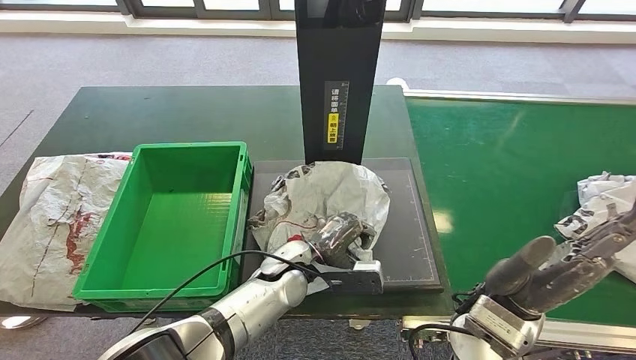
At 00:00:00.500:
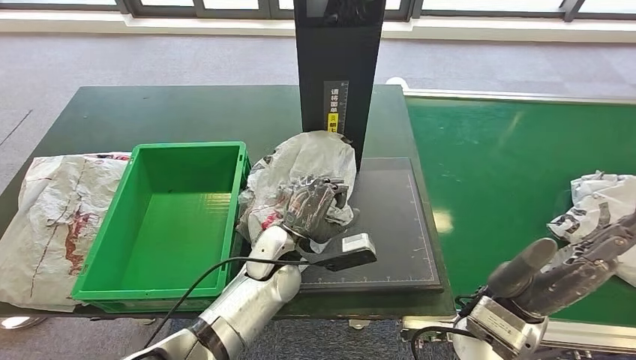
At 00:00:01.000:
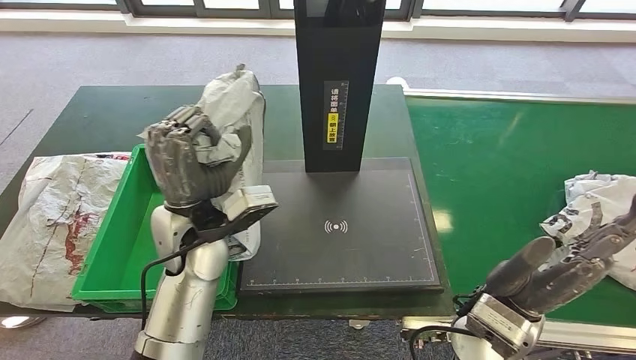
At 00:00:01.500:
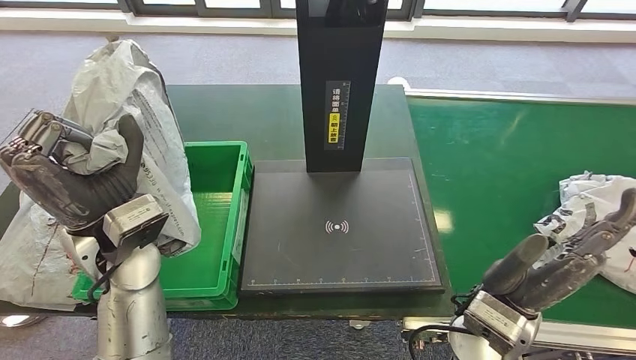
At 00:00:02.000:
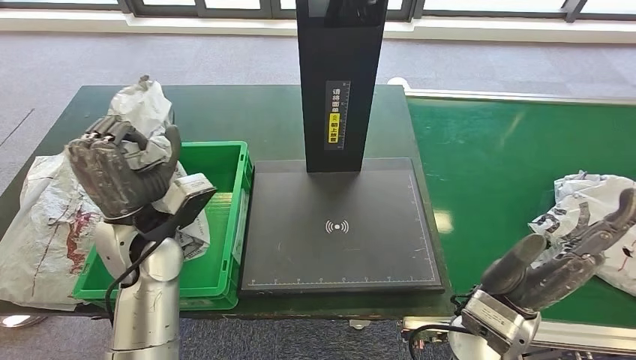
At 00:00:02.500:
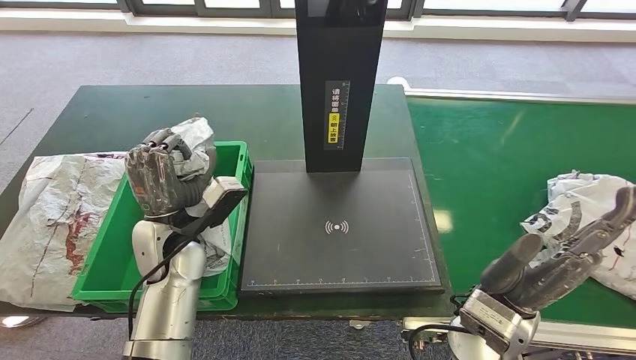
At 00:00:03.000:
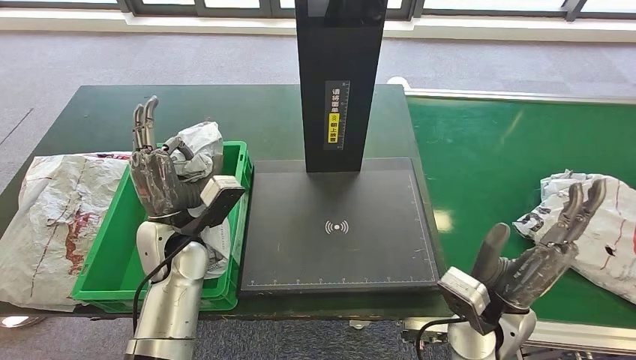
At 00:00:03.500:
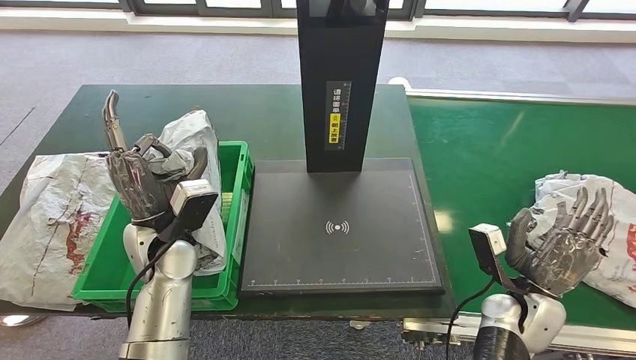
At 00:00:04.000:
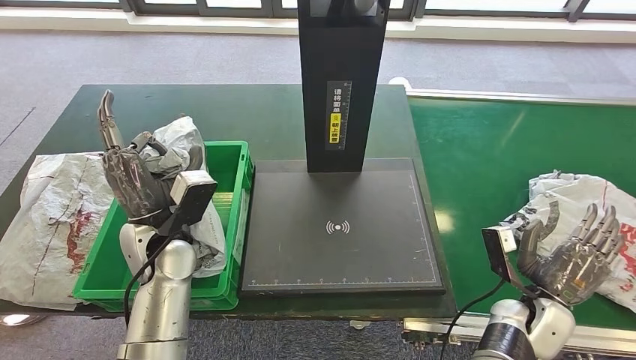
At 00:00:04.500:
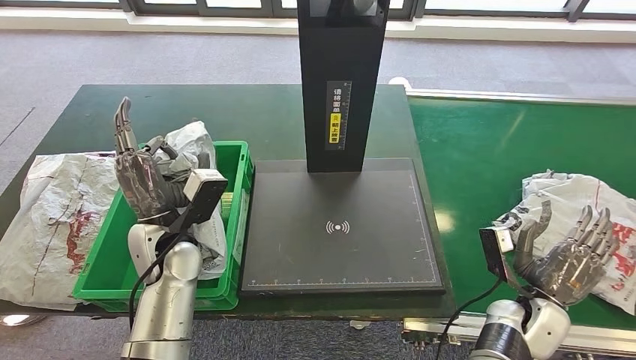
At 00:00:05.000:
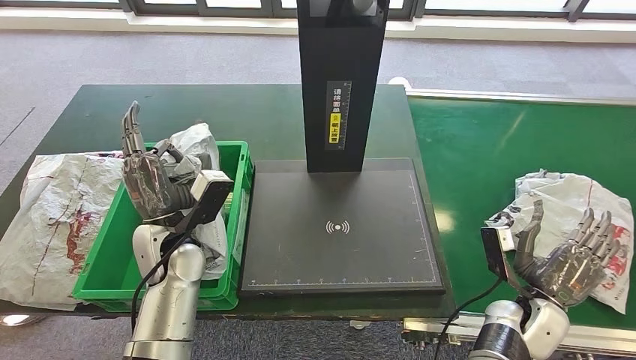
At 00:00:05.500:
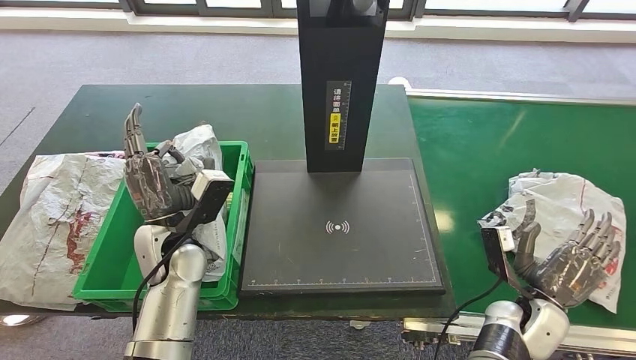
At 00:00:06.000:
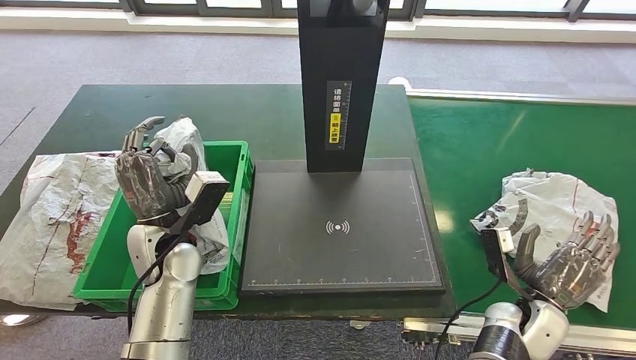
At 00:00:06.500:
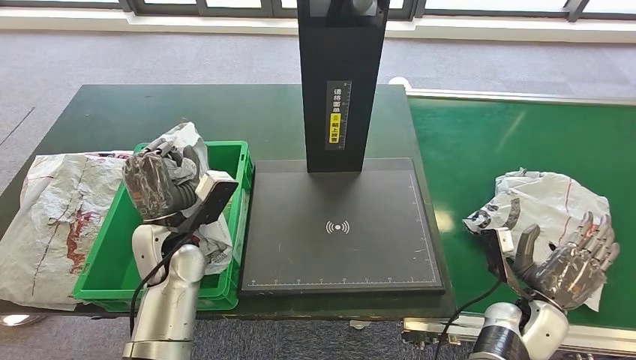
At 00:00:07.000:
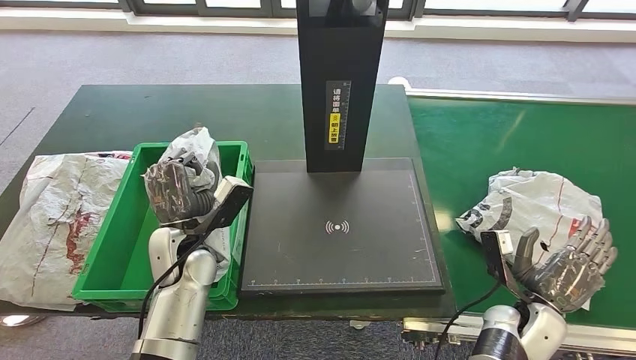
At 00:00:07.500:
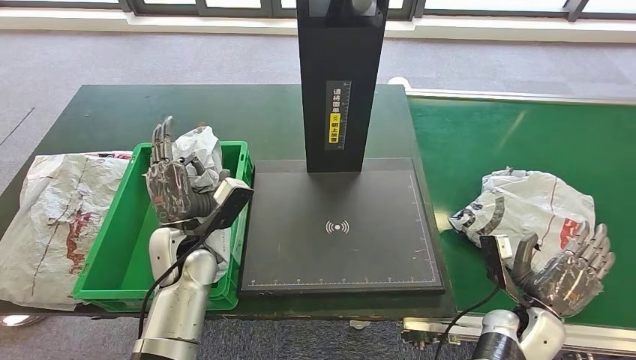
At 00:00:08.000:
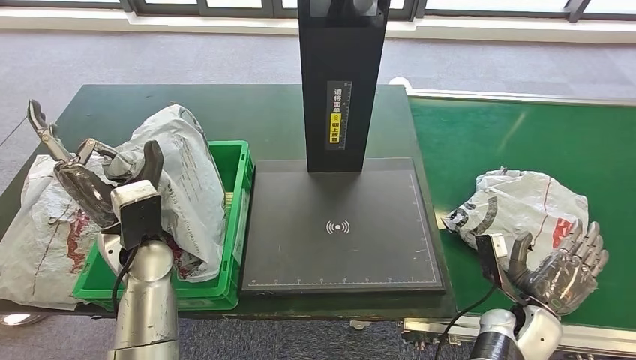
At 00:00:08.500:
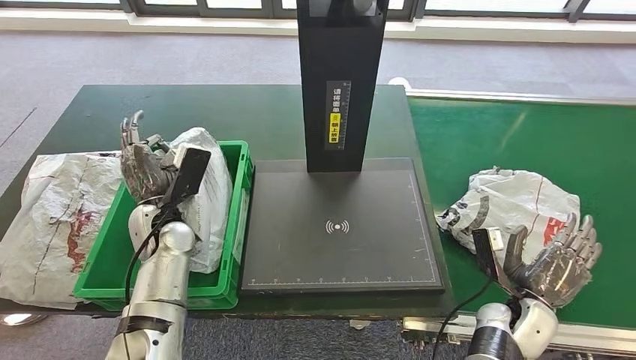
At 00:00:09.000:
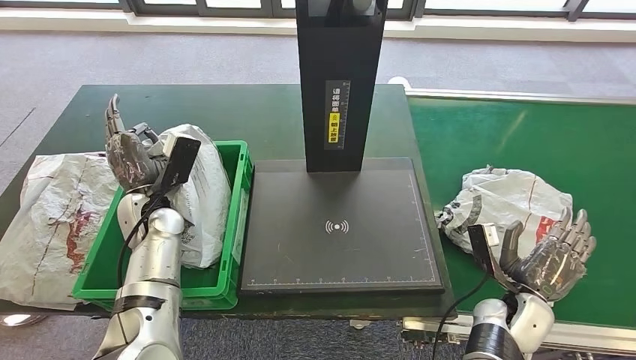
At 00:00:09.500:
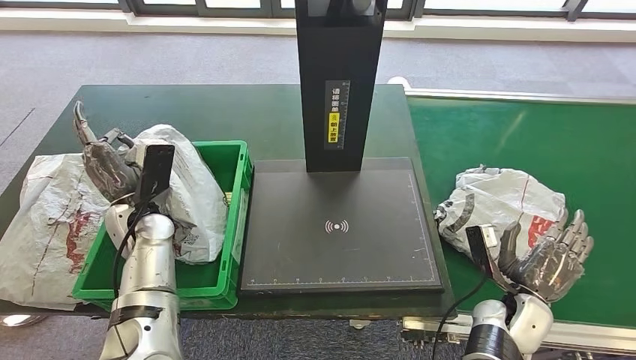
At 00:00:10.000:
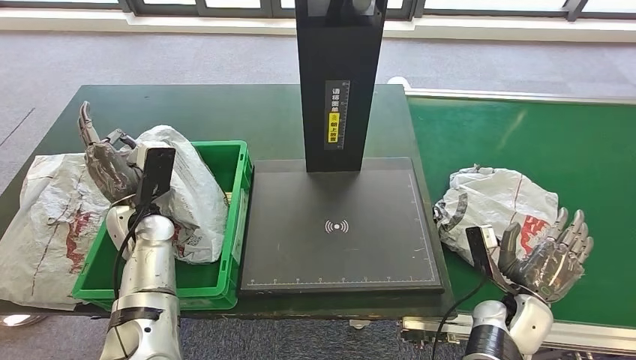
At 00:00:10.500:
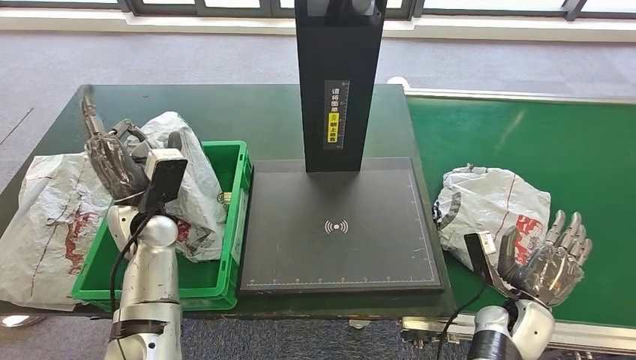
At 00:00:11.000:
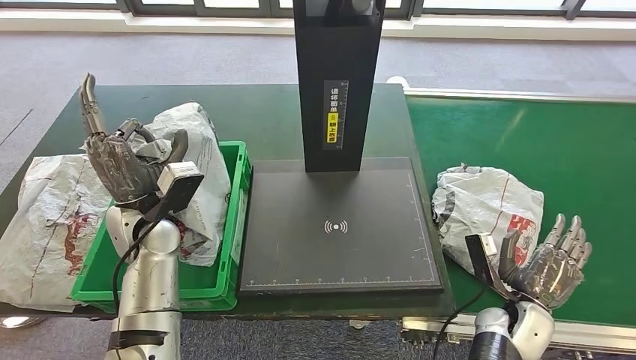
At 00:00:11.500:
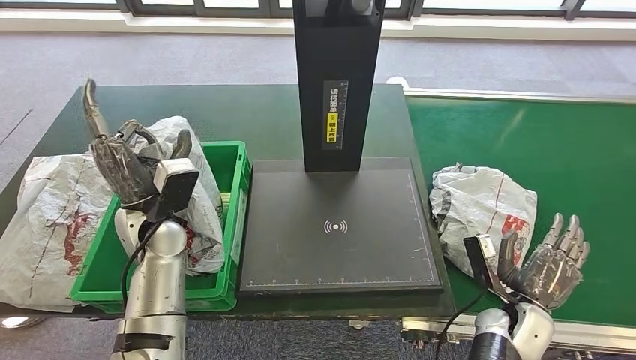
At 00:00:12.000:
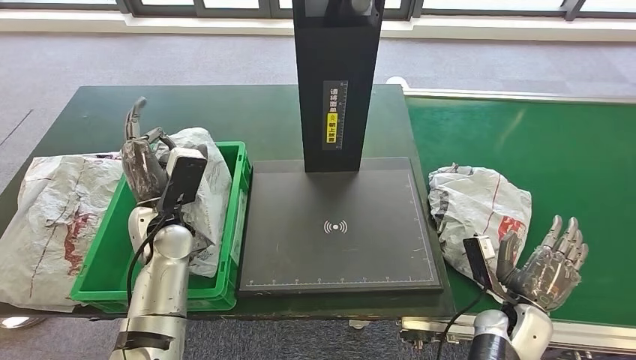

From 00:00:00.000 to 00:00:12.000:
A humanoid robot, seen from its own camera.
From 00:00:04.000 to 00:00:08.000: There are only small adjustments of the hands.
From 00:00:08.000 to 00:00:10.000: The left hand moves forward, about 5 cm.
From 00:00:10.000 to 00:00:12.000: The left hand changes place by about 5 cm.

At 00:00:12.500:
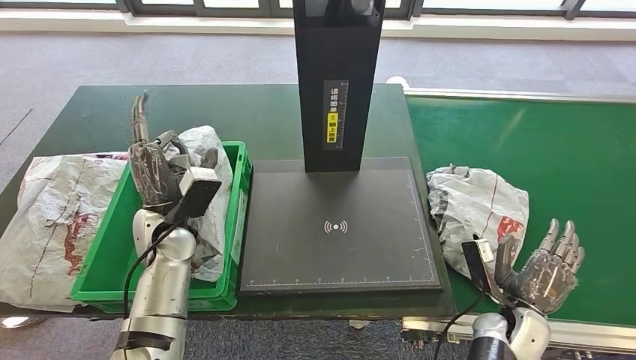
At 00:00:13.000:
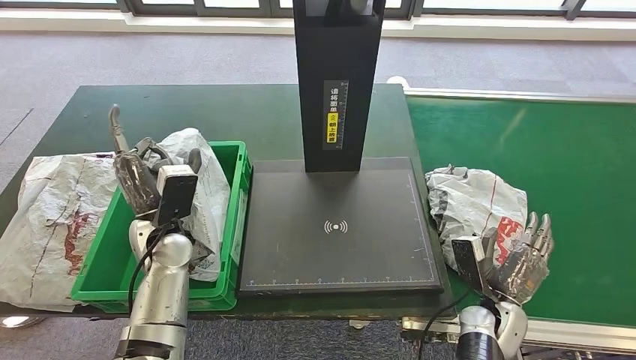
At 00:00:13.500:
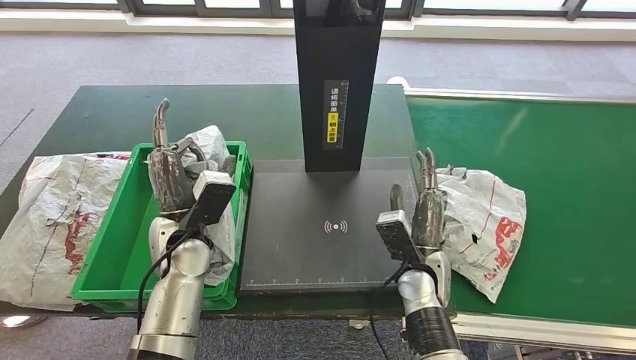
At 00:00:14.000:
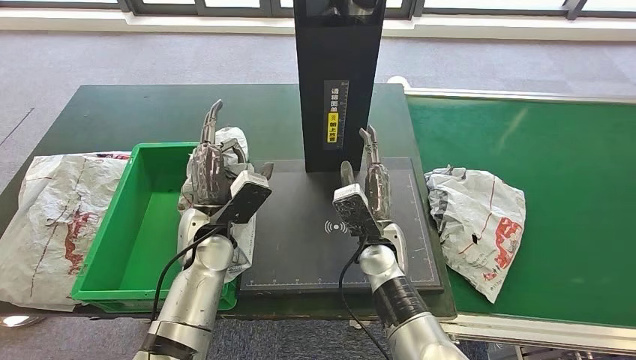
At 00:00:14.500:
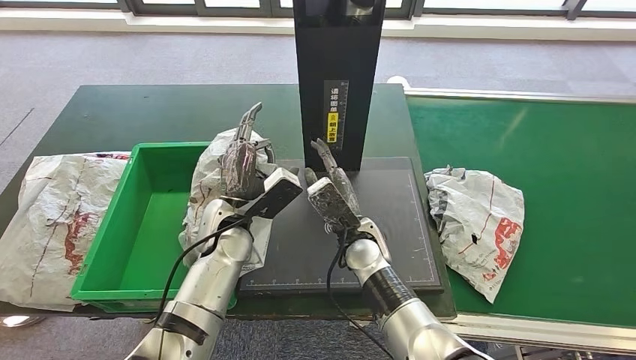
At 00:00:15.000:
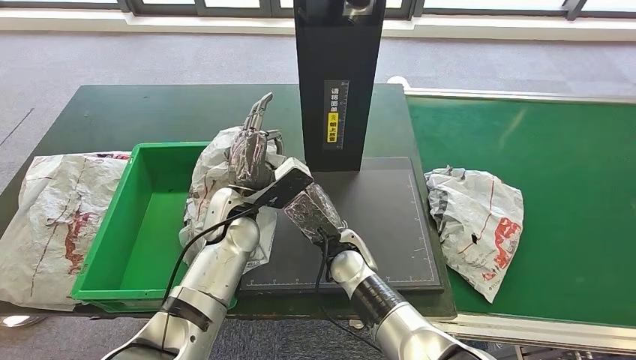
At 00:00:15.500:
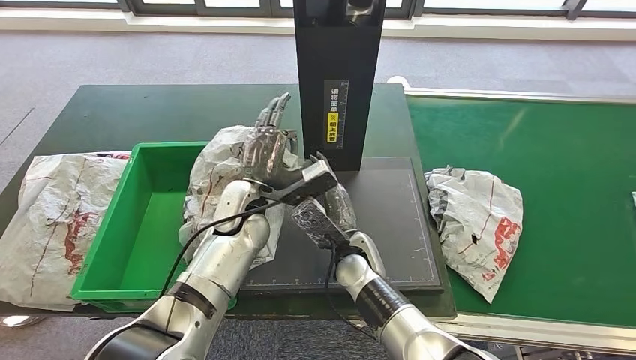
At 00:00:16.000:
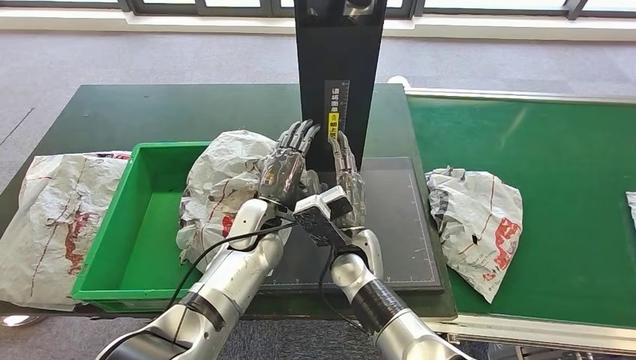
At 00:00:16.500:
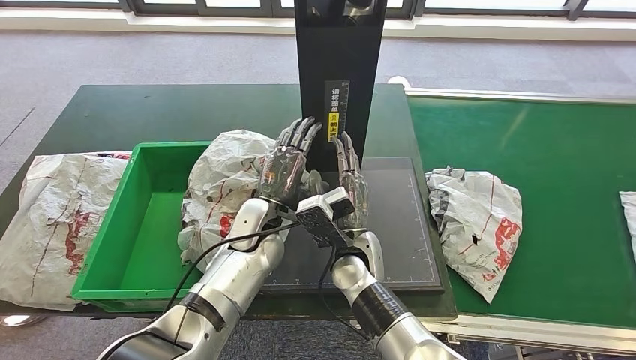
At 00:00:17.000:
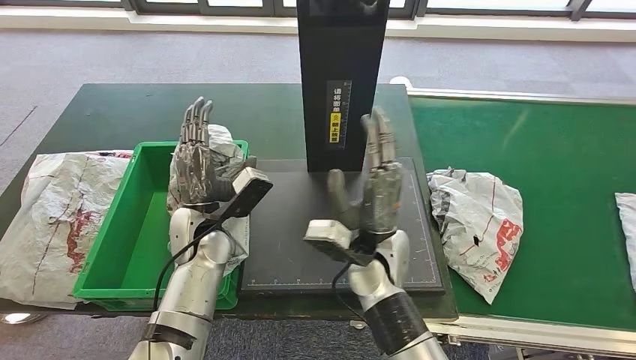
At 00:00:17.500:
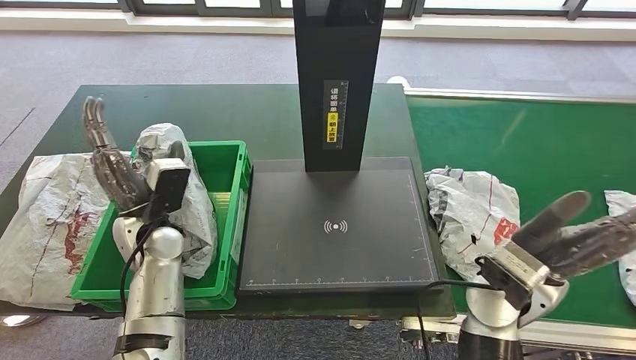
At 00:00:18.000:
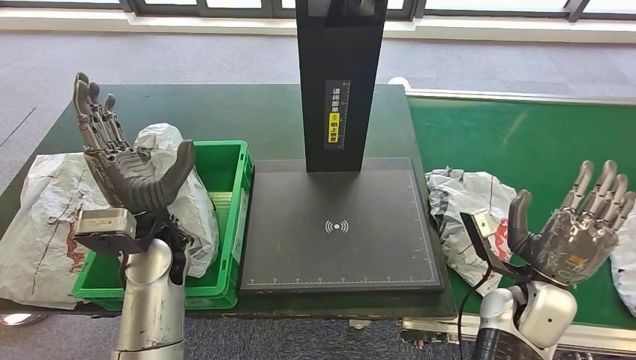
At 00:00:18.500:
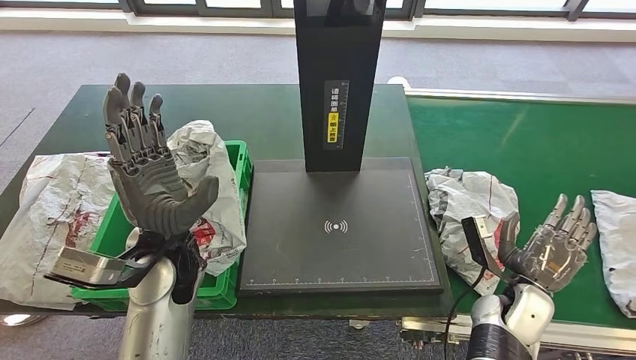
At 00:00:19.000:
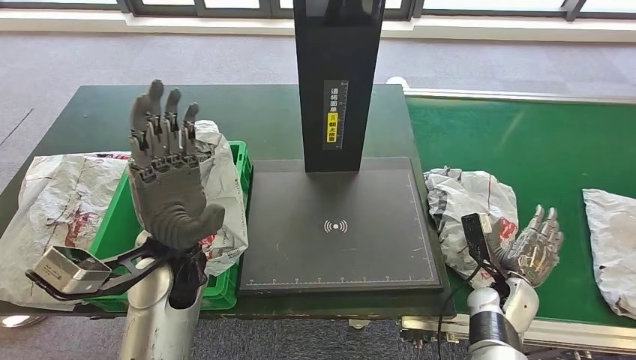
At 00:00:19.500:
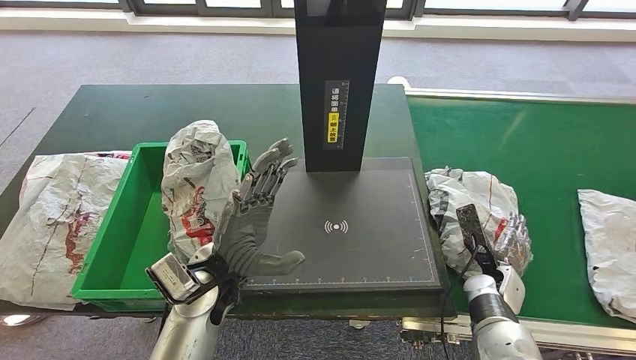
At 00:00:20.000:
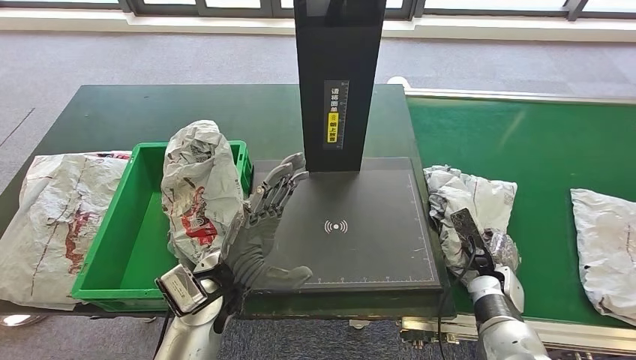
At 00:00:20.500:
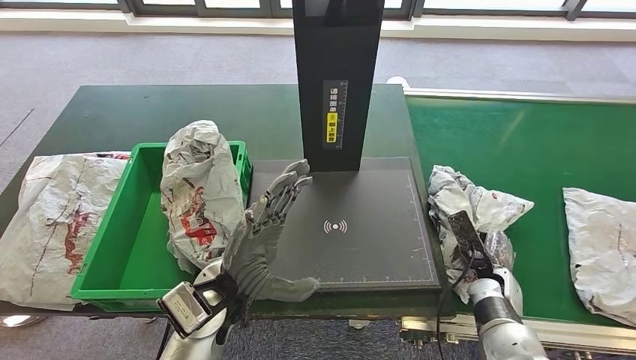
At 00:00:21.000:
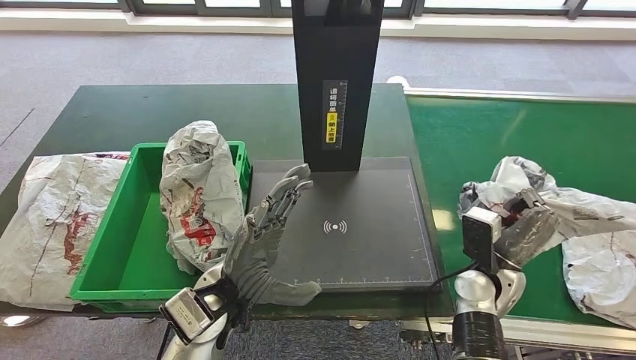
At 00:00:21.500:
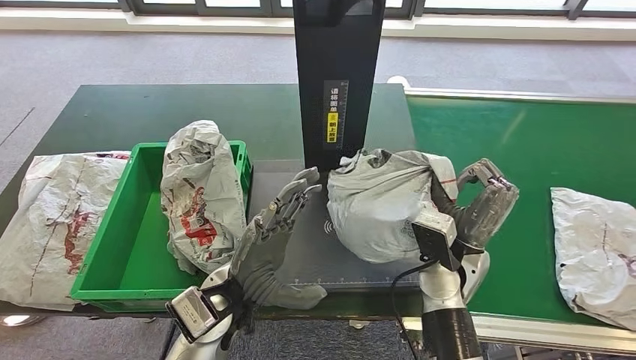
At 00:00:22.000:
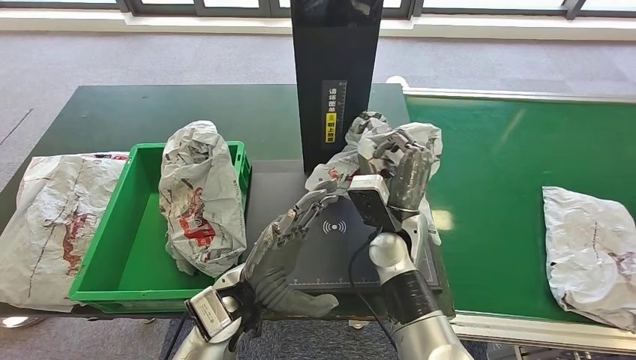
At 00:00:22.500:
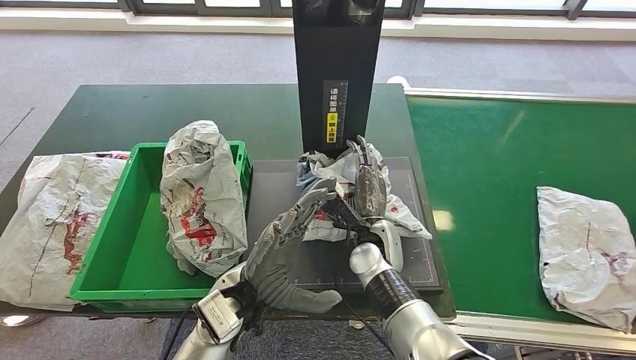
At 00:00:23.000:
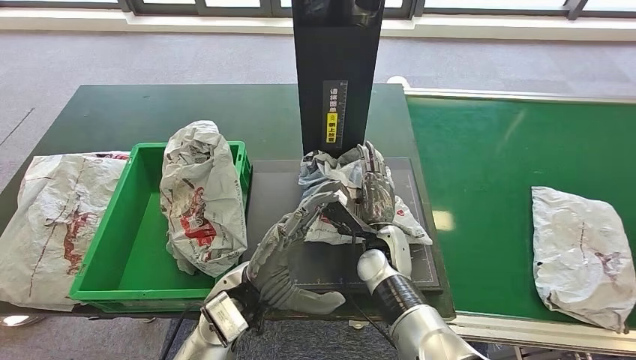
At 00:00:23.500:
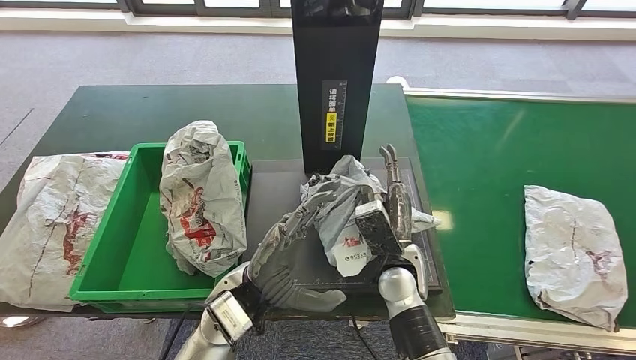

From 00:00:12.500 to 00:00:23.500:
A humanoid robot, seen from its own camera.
Step, from 00:00:12.500 to 00:00:18.500: Put the parcel inside the courier box.
Step, from 00:00:19.500 to 00:00:21.000: Pick up the parcel from the conveyor belt.
